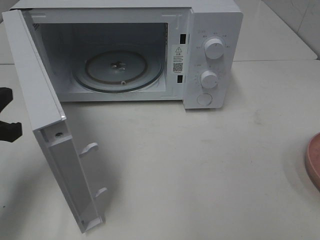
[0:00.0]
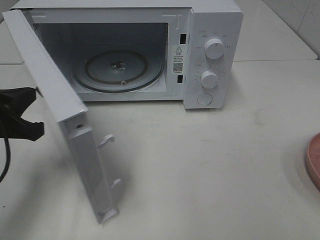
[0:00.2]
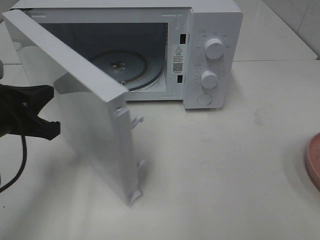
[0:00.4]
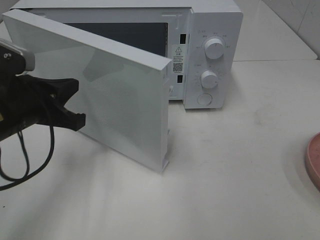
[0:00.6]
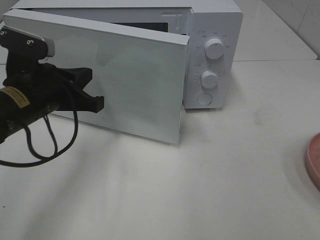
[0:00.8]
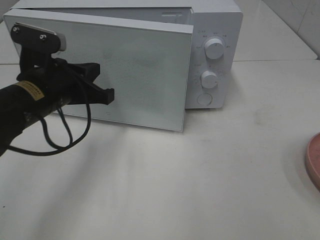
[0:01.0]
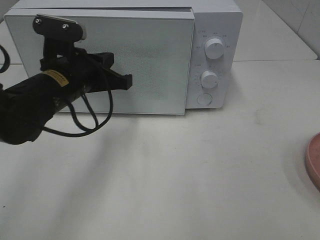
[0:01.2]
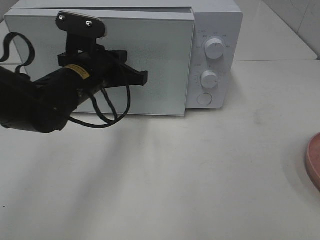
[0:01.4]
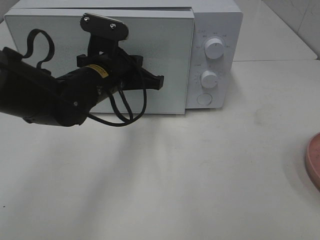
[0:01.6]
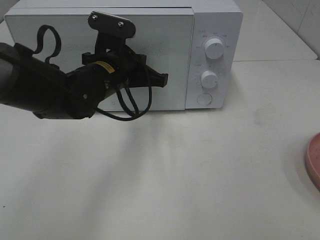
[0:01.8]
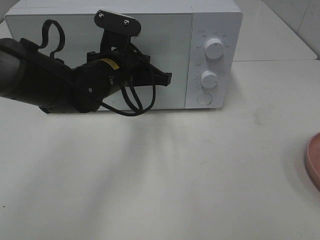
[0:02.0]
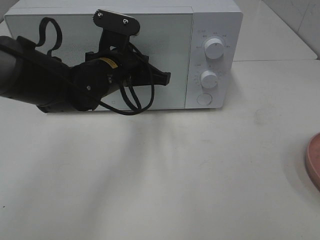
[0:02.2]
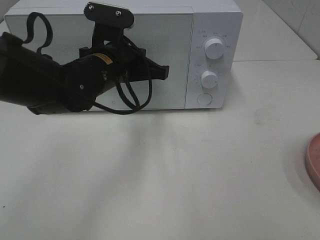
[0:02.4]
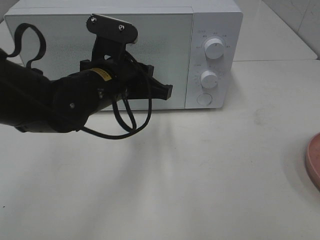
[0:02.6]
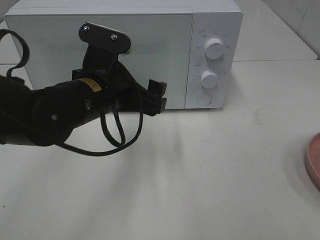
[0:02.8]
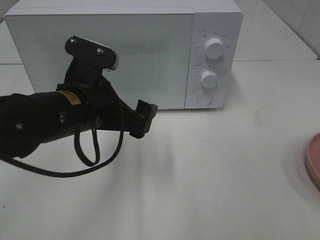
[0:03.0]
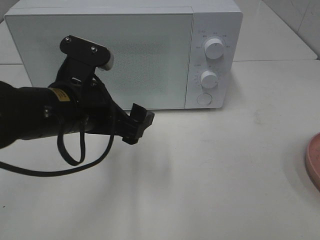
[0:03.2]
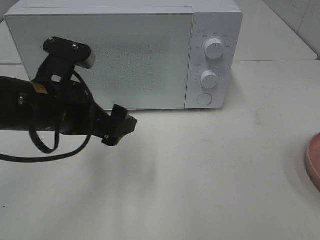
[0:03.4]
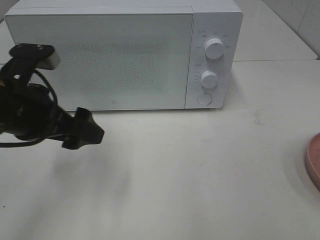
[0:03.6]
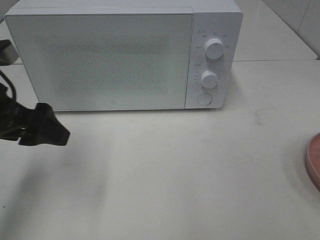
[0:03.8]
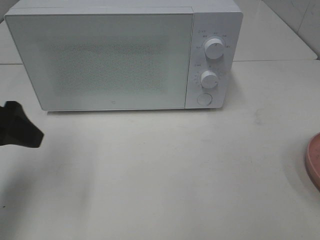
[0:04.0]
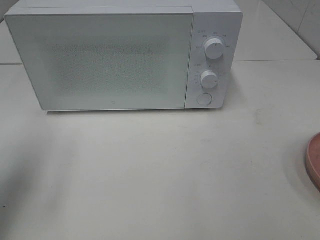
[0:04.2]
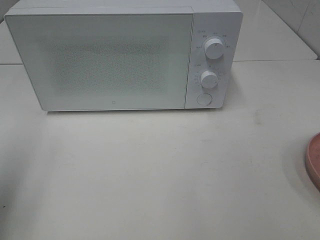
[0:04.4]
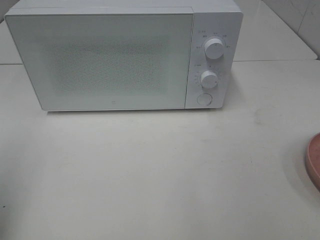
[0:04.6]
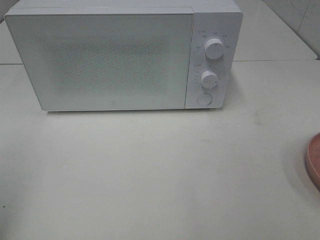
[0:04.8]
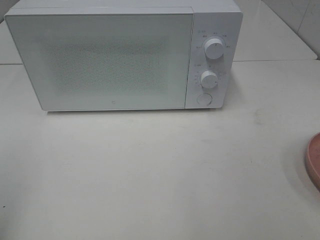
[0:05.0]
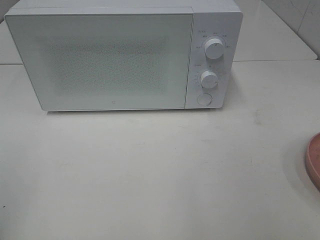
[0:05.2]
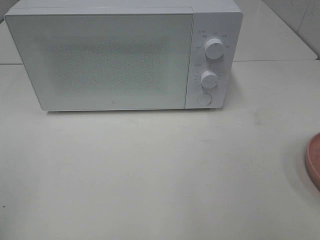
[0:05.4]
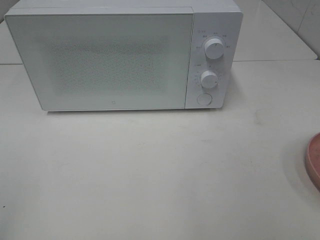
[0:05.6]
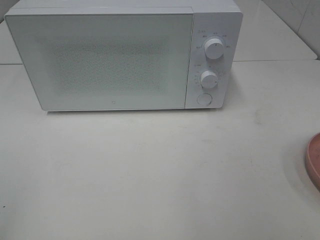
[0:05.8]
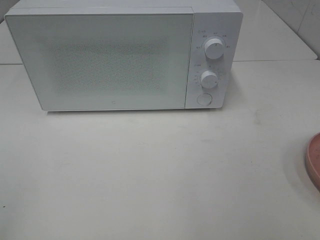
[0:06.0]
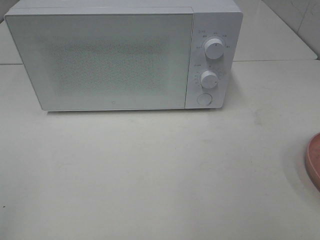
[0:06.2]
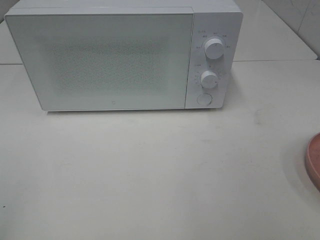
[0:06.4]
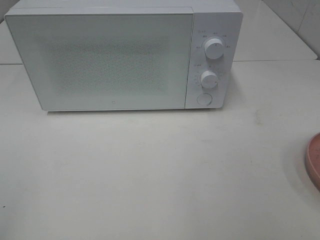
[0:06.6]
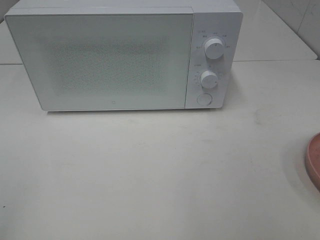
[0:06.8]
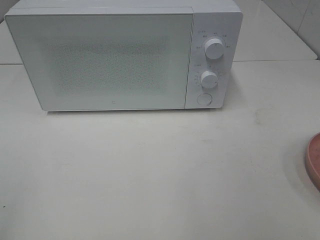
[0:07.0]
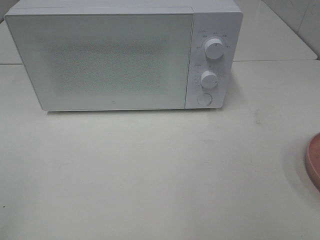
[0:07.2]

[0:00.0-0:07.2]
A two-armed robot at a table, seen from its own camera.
Task of the whole recording: Heat the burger.
Step, 0:00.0 to 0:02.8: Left hand: close the microwave door.
0:00.0 to 0:01.4: The left gripper shifts some 20 cm to the right and forward.
0:01.4 to 0:02.8: The left gripper goes some 5 cm backward, and opens.
0:02.8 to 0:04.4: The left gripper travels to the left, backward and upward by some 30 cm.
0:04.4 to 0:05.8: The left gripper travels backward by roughly 15 cm.
0:05.8 to 0:07.2: Neither gripper changes place.

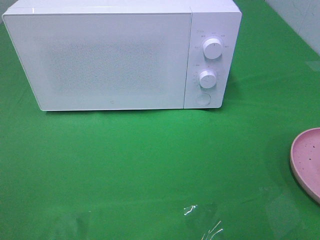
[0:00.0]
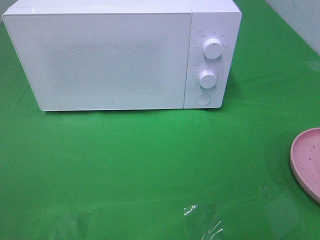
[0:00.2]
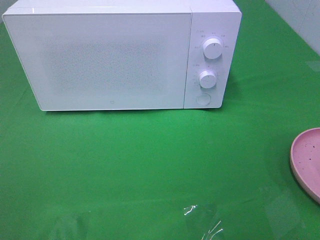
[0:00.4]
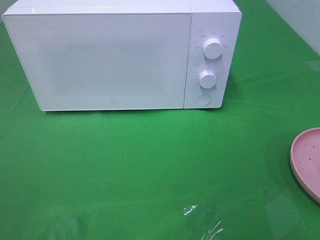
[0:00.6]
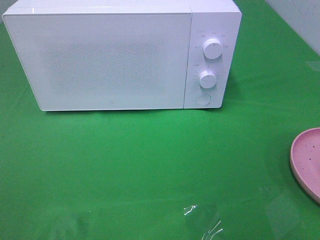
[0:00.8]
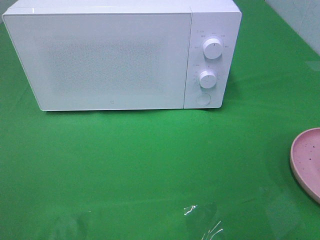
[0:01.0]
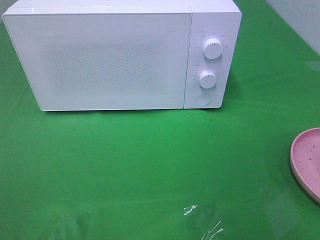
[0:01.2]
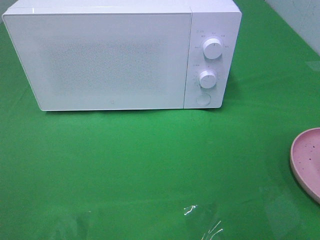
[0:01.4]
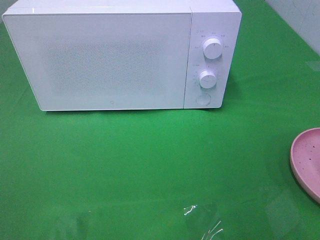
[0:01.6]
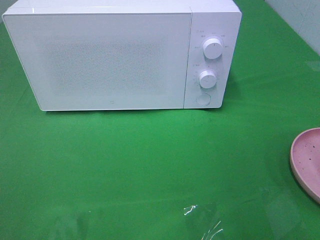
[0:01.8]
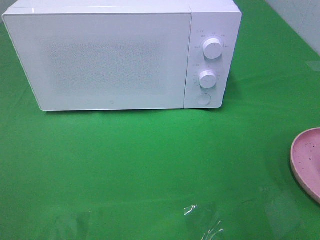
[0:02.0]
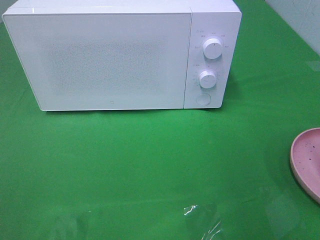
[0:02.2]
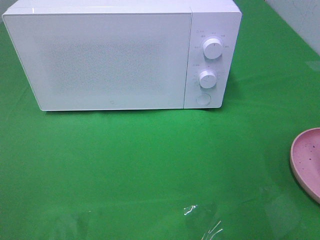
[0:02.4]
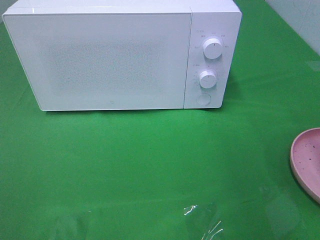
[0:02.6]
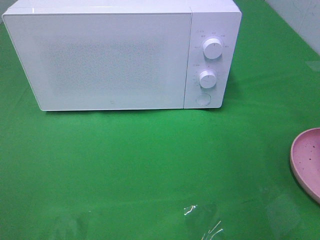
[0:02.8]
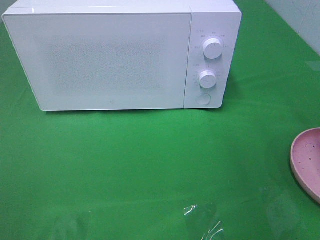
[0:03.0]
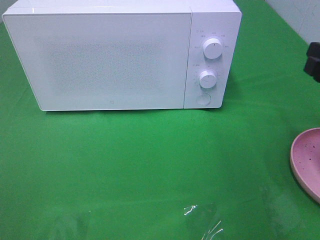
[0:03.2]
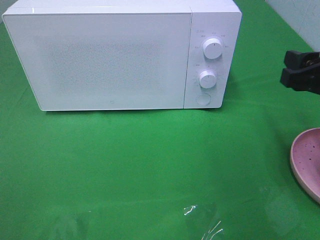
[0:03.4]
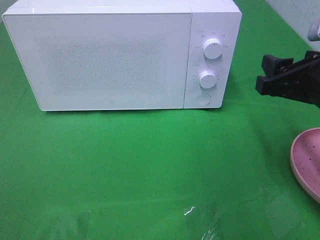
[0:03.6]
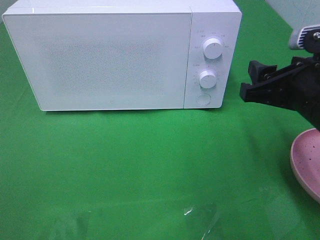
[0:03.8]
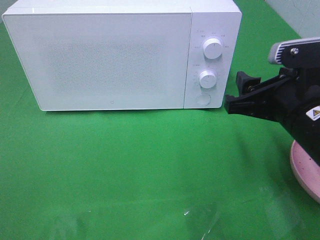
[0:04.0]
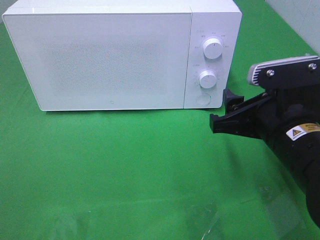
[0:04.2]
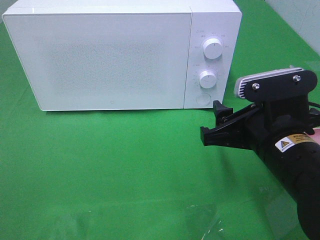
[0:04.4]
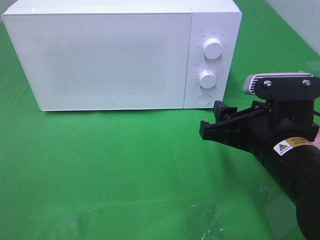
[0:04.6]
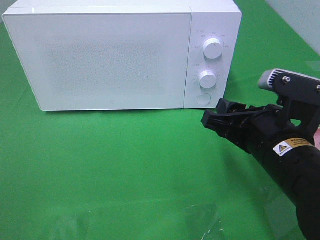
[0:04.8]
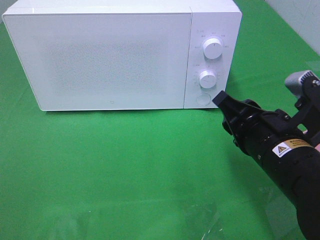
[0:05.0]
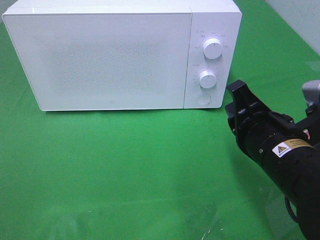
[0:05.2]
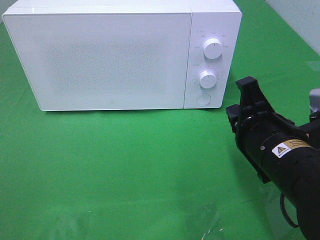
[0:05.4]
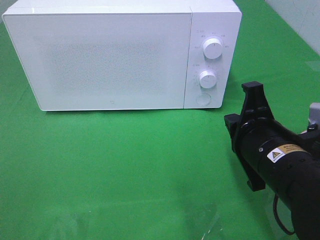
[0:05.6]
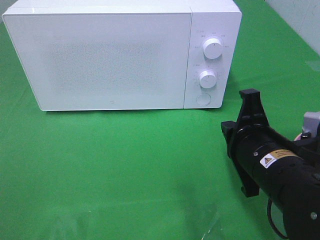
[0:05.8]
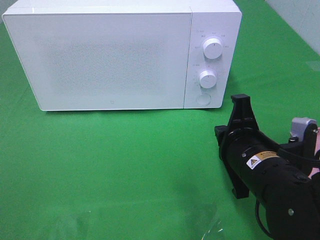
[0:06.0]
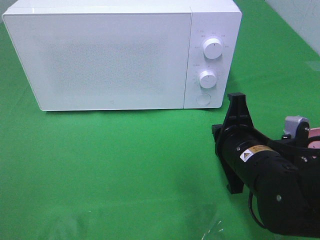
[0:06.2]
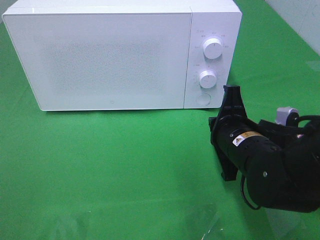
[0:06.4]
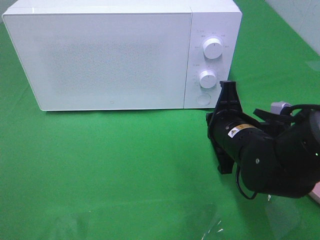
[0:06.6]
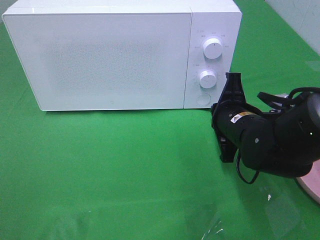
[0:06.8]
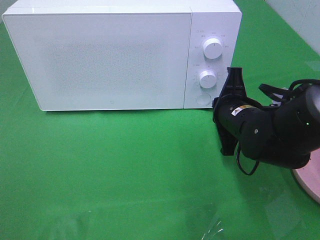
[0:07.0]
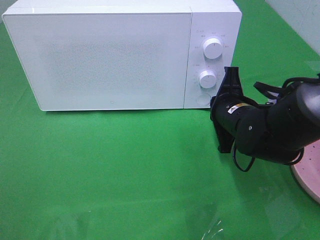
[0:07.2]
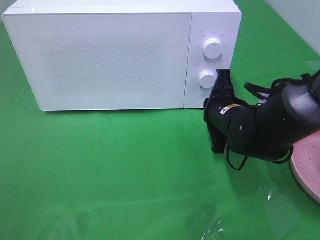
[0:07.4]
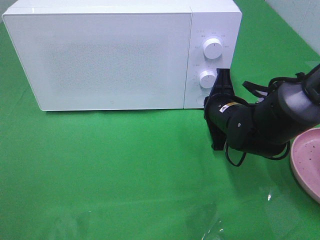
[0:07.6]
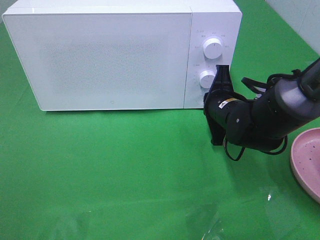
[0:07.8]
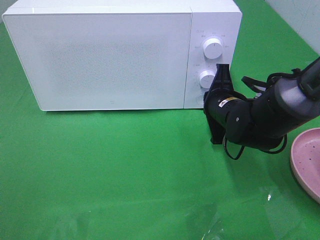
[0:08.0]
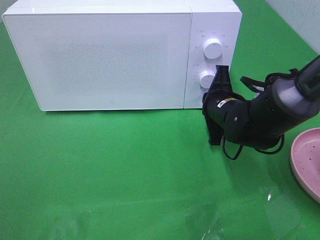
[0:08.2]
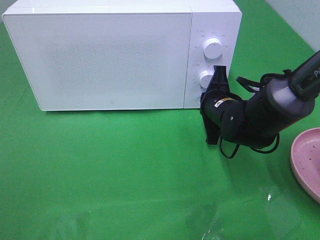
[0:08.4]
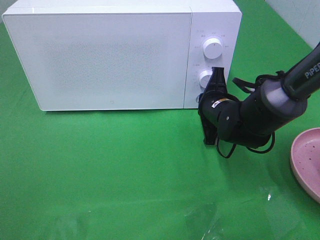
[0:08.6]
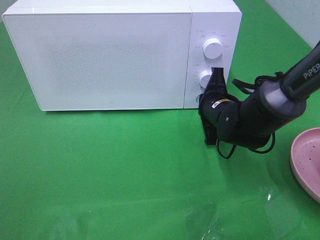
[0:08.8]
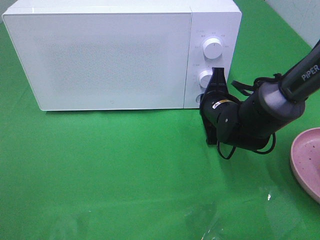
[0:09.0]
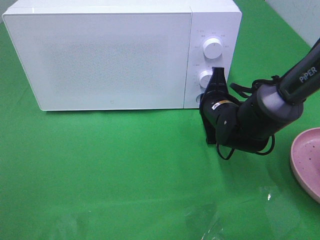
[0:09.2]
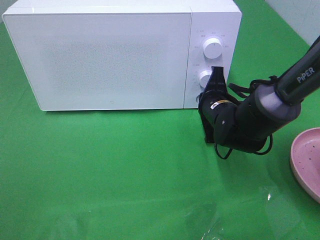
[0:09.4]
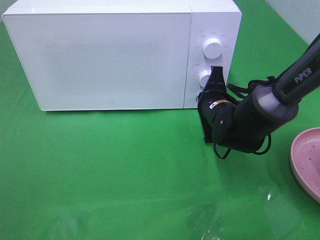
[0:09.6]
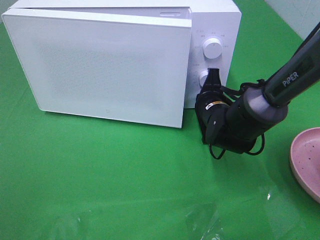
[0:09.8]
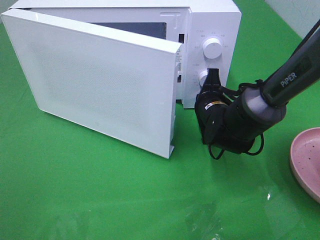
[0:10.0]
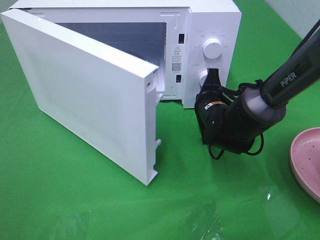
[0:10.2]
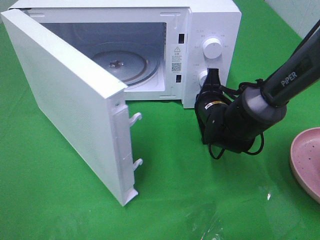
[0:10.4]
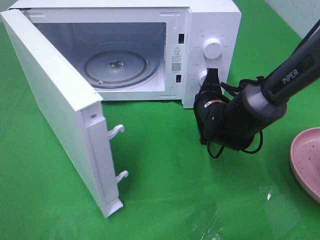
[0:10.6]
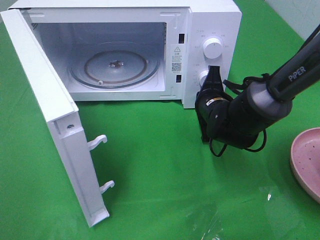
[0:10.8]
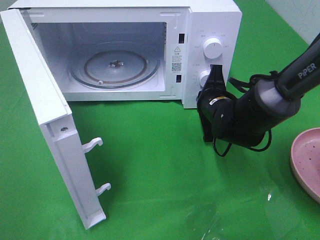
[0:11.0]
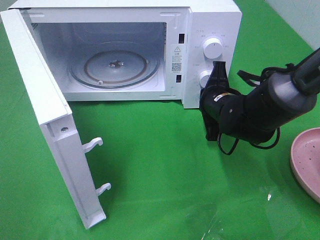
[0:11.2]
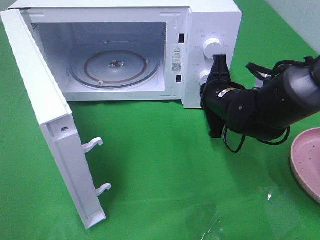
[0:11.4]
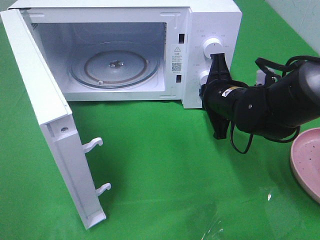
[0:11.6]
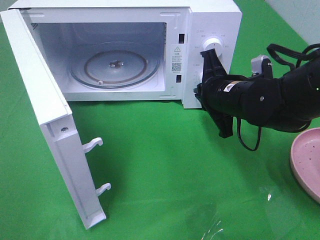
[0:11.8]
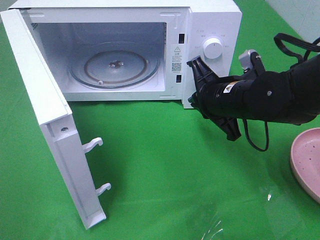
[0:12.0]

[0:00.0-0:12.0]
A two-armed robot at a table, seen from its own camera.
Task of the whole recording: Heat the burger.
Step, 0:00.0 to 0:11.8: Right hand: press the switch.
0:03.0 to 0:04.4: The right gripper moves to the left and downward, about 15 cm.
0:04.4 to 0:06.0: The right gripper closes up.
0:06.0 to 0:07.6: The right gripper moves forward, roughly 15 cm.
0:07.6 to 0:09.0: The grippers stay close to where they were, moving slightly.
0:10.4 to 0:12.0: The right gripper shifts some 10 cm upward and backward.

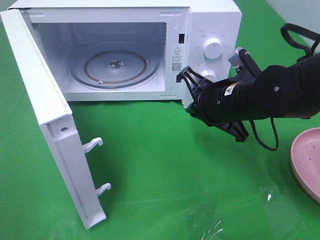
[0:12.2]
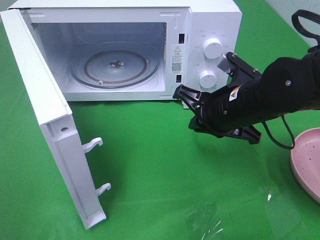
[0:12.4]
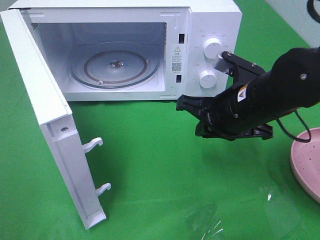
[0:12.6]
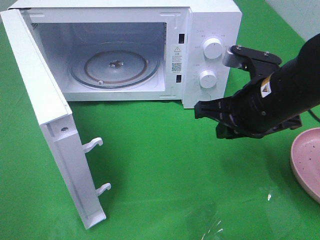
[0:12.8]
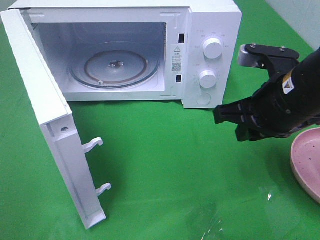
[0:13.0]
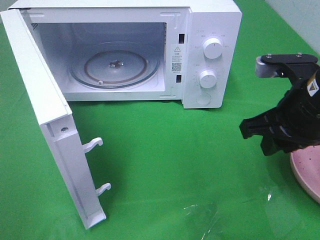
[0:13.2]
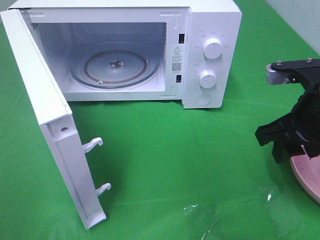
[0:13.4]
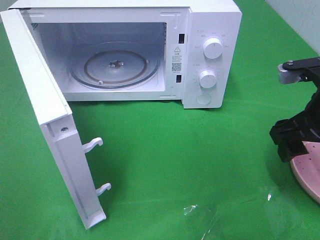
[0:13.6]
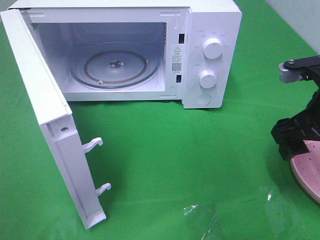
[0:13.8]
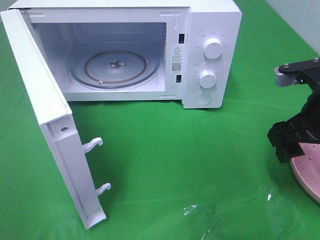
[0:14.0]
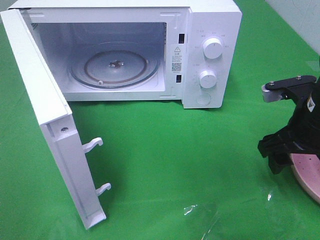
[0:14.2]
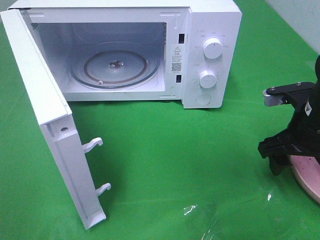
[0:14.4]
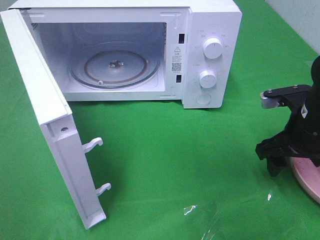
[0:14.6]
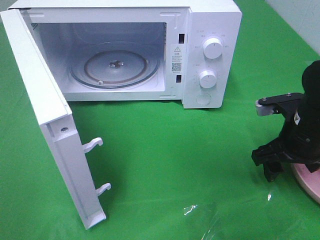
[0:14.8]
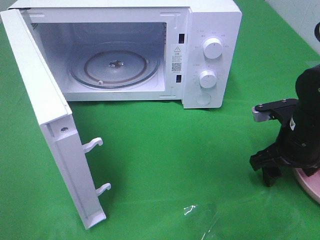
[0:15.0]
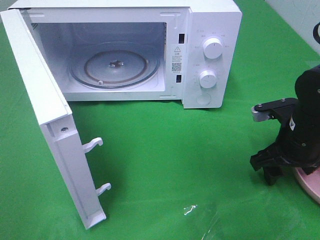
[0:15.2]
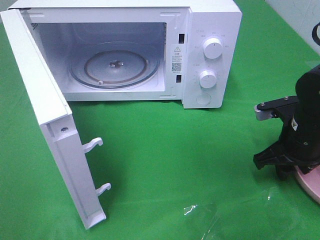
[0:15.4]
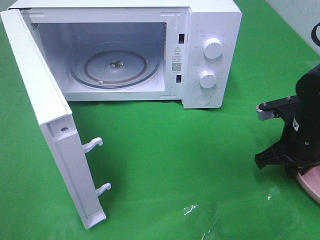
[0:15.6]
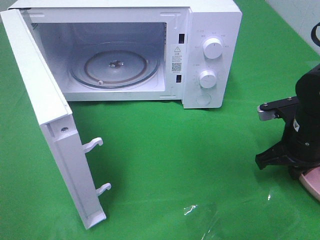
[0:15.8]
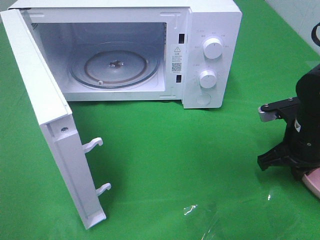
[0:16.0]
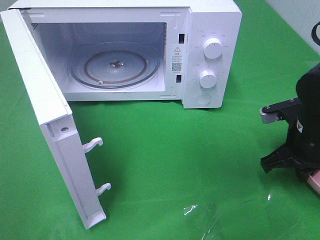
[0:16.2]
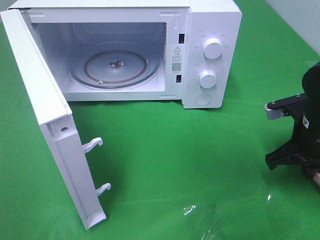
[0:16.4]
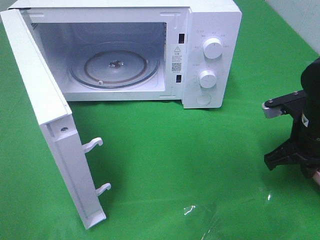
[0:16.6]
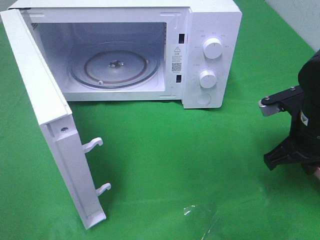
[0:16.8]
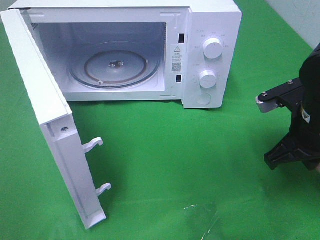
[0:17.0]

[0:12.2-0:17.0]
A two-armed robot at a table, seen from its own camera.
Task of the whole recording: Heat the burger.
Step, 0:12.2 to 0:16.0: Right hand: grab the plate with the hamburger.
0:12.2 to 0:13.8: The right gripper is displaced to the right, upward and backward by some 15 cm, and opens its fingers.
0:13.8 to 0:15.4: The right gripper is displaced downward by roughly 10 cm, and closes its fingers.
0:15.4 to 0:17.0: The right gripper shifts approximately 5 cm upward, and closes its fingers.
